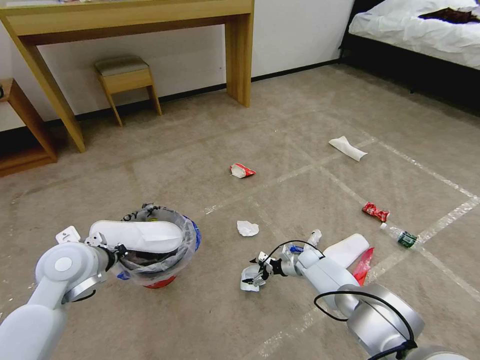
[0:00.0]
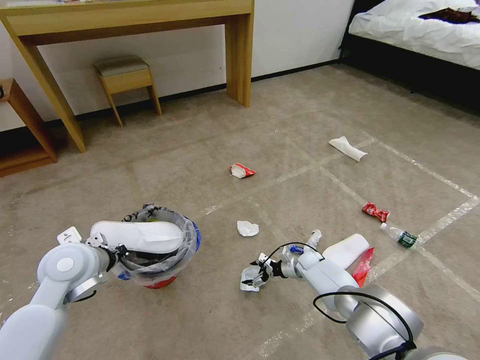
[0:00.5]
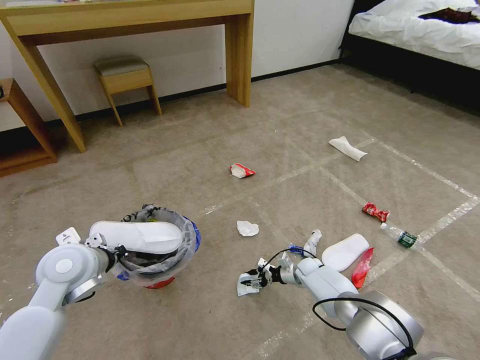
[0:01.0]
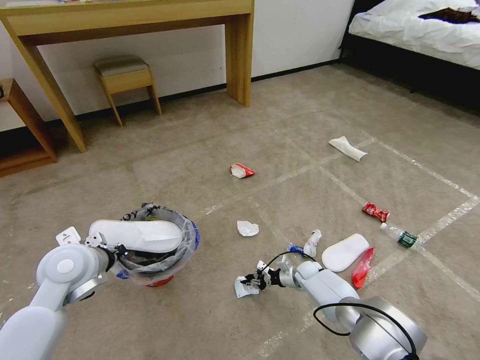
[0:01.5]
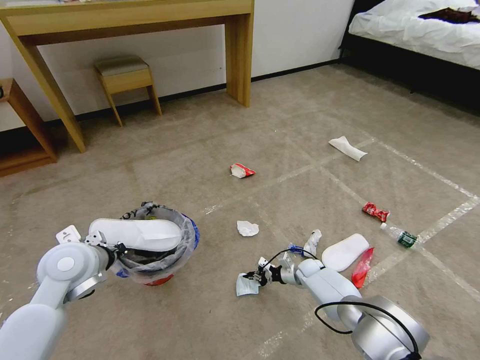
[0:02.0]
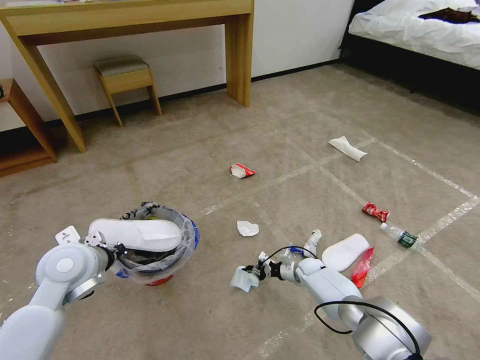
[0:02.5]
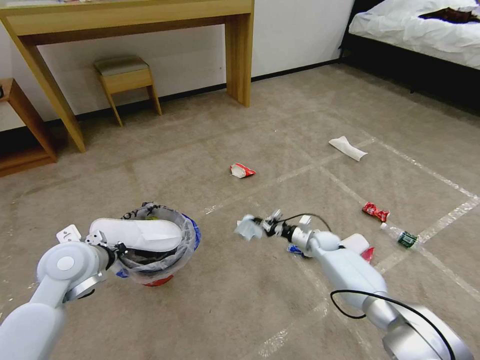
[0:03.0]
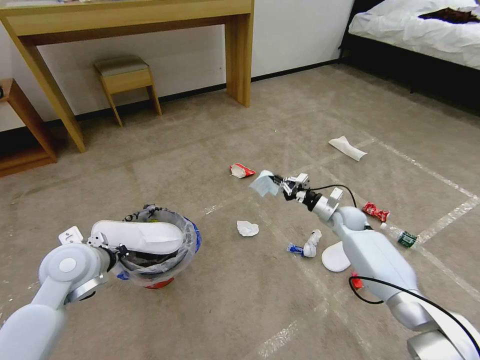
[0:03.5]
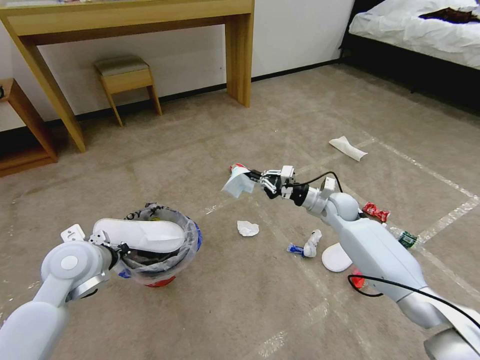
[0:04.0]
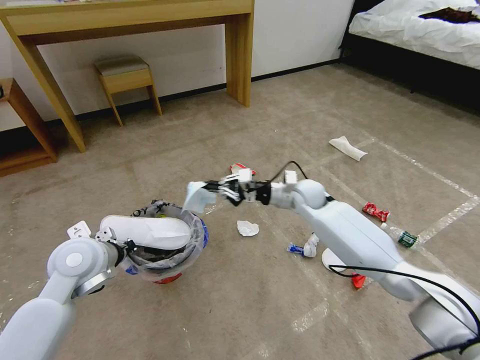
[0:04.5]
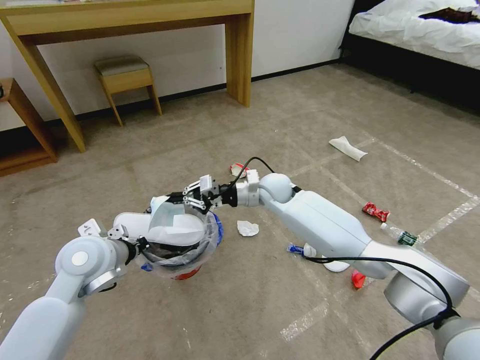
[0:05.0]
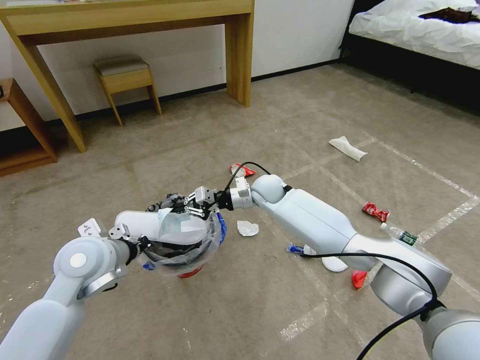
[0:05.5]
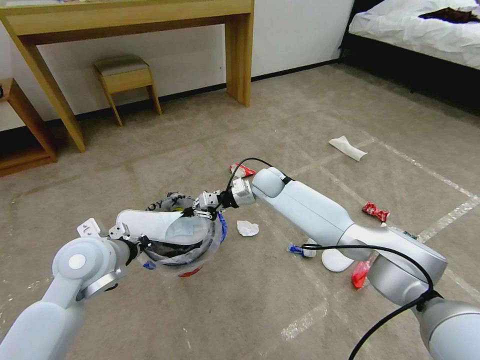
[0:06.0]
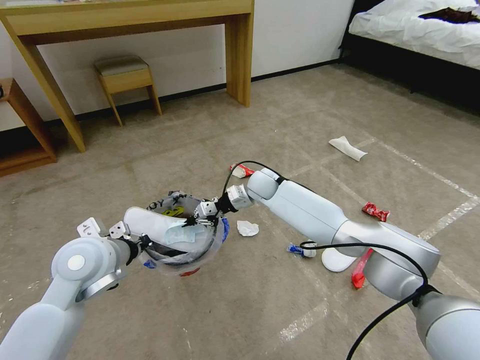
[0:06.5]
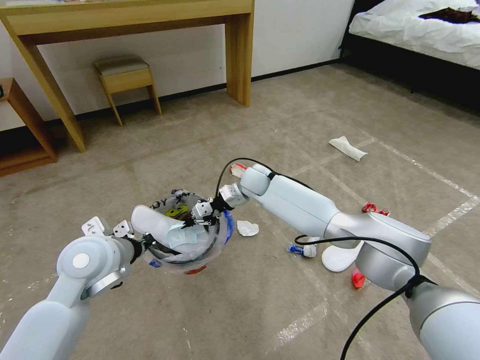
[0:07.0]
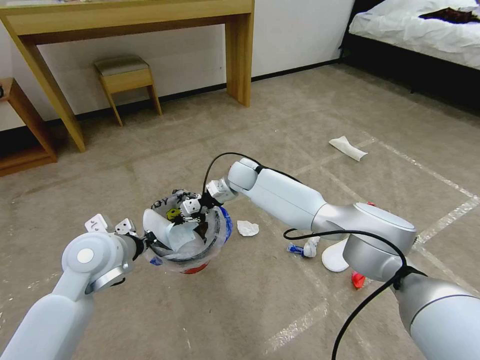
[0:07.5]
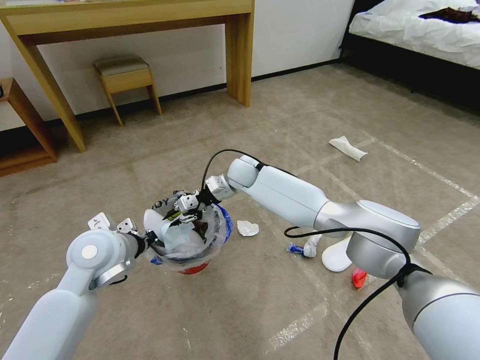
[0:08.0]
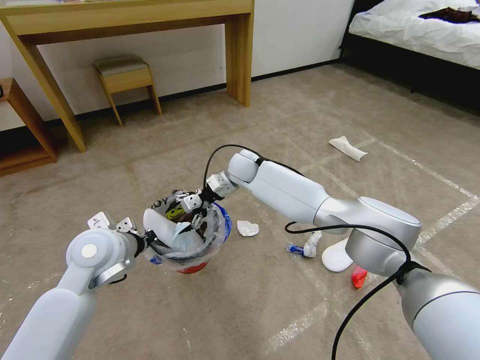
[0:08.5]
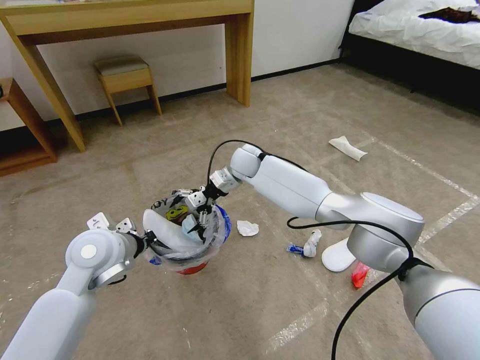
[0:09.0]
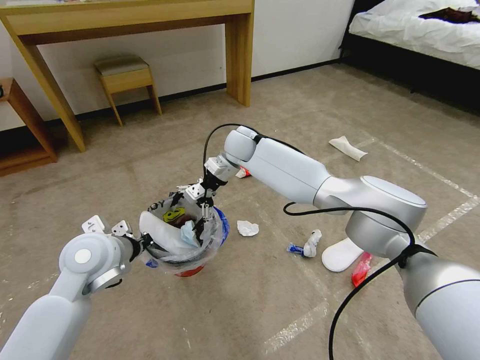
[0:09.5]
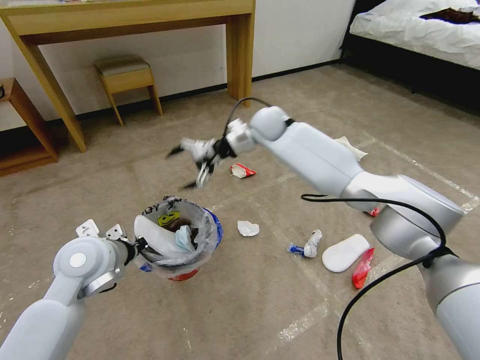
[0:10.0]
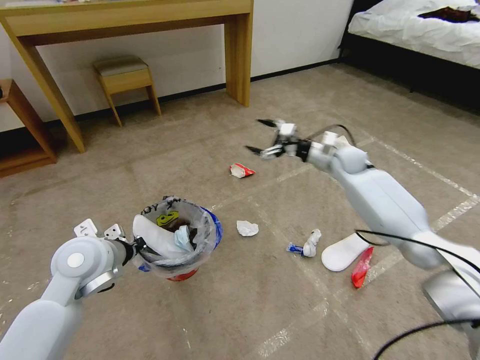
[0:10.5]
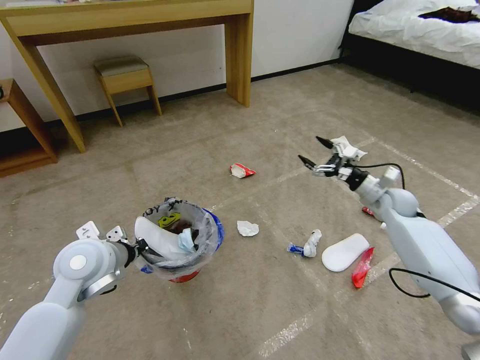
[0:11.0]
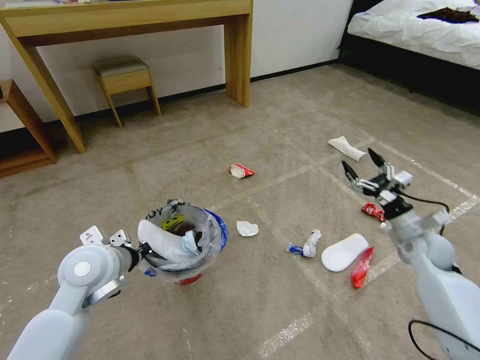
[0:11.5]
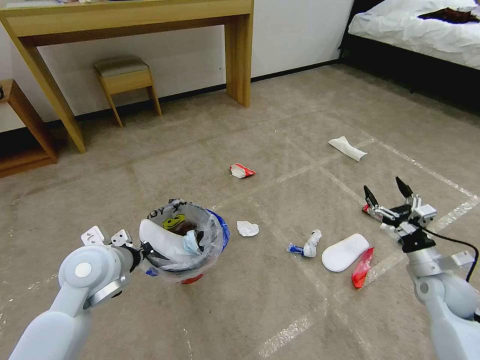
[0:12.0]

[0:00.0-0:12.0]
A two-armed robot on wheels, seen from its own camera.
Task of the whole recording: Pick up the trash bin and place the garbage on the floor into it.
0:00.0 to 0:02.0: The right gripper closes.
0:02.0 to 0:04.0: The right gripper moves upward, roughly 25 cm.
0:04.0 to 0:06.0: The right gripper moves to the left, about 20 cm.
0:06.0 to 0:08.0: The right gripper moves to the left, roughly 5 cm.
0:08.0 to 0:10.0: The right gripper shifts roughly 15 cm upward and to the right, and opens its fingers.
0:10.0 to 0:12.0: The right gripper shifts about 60 cm to the right, backward and downward.

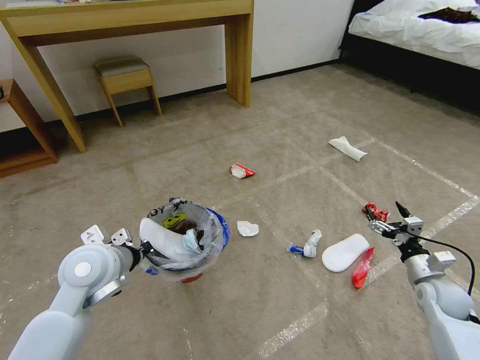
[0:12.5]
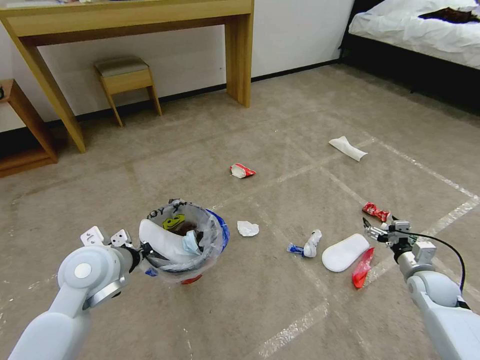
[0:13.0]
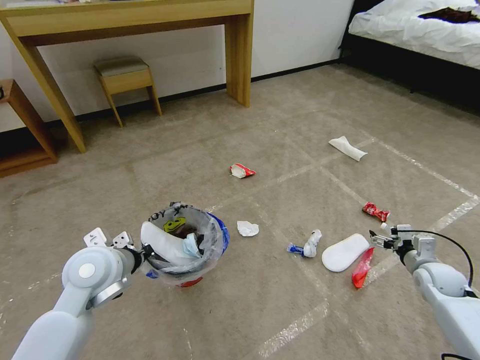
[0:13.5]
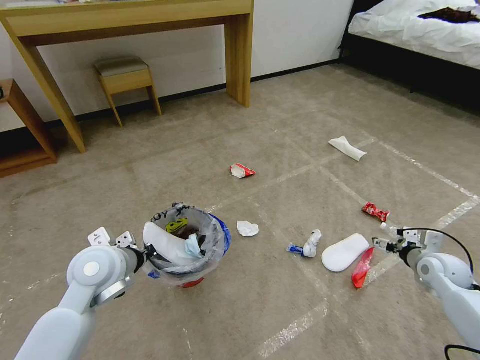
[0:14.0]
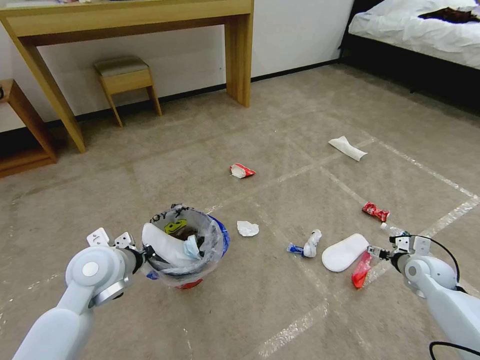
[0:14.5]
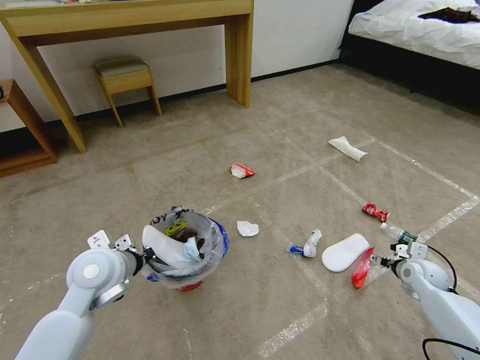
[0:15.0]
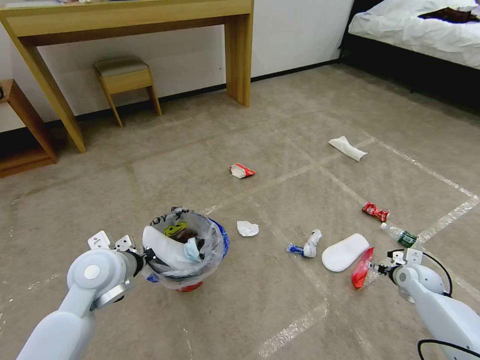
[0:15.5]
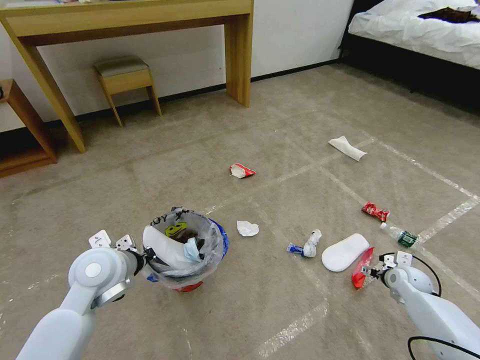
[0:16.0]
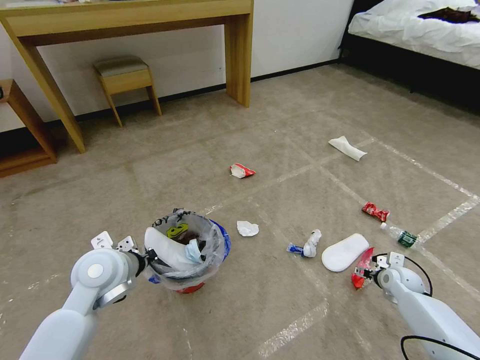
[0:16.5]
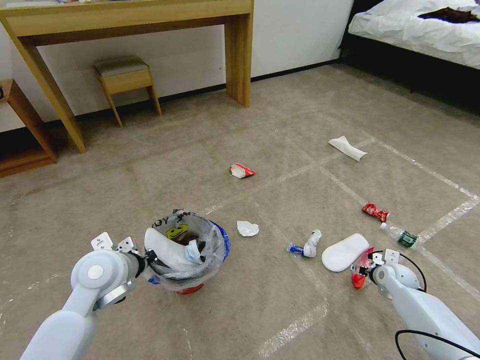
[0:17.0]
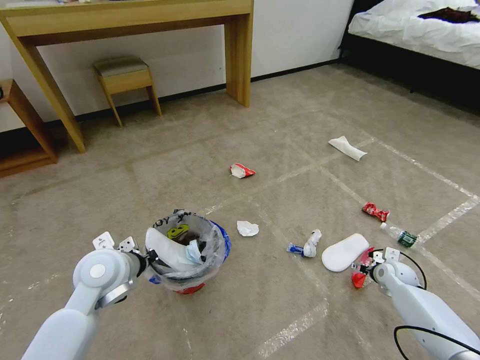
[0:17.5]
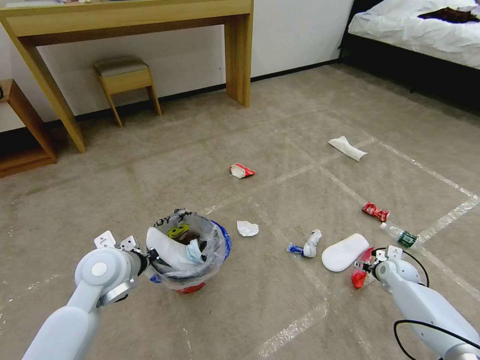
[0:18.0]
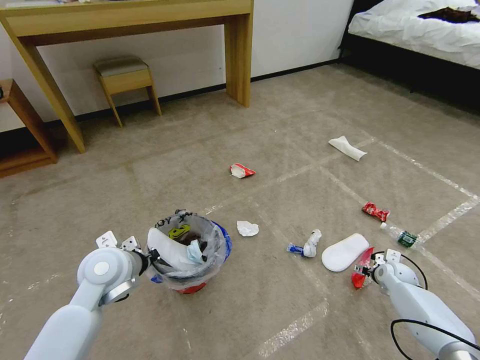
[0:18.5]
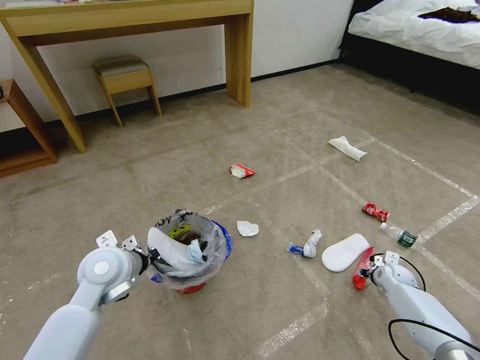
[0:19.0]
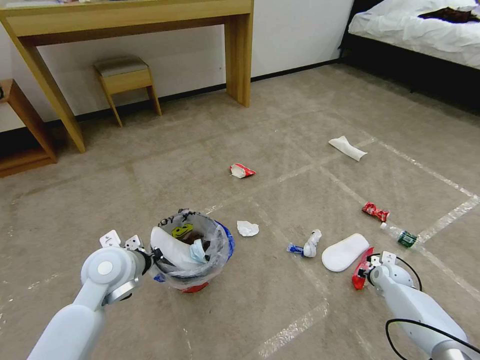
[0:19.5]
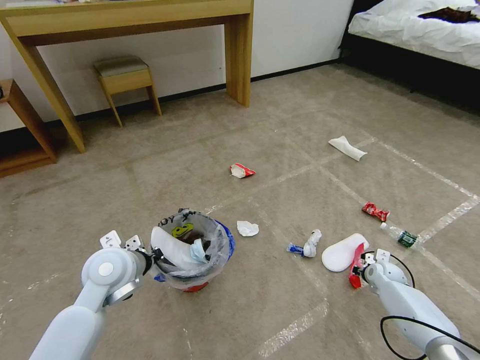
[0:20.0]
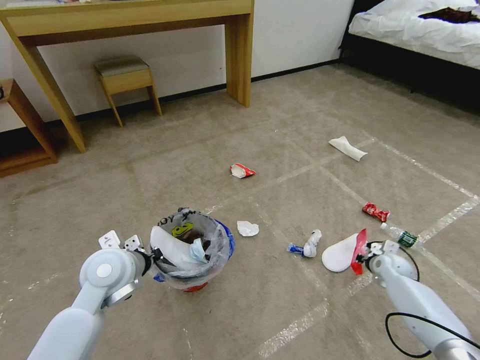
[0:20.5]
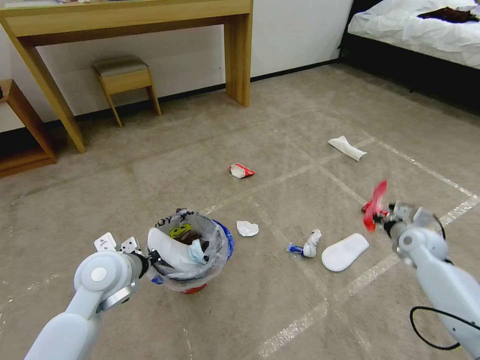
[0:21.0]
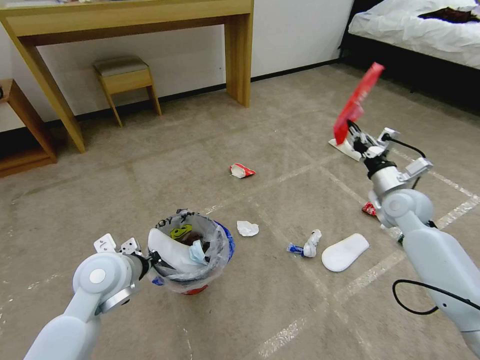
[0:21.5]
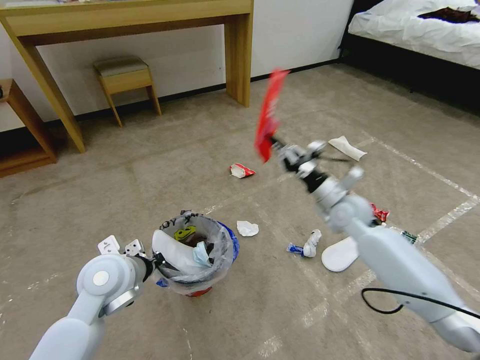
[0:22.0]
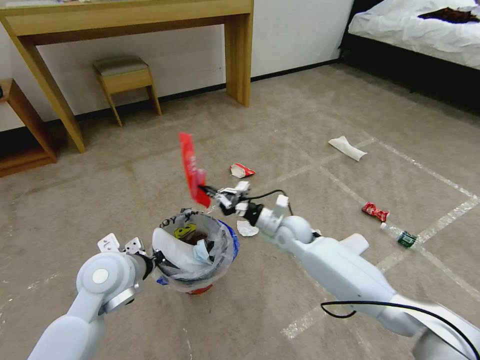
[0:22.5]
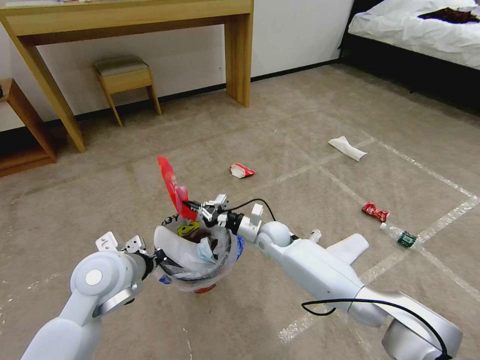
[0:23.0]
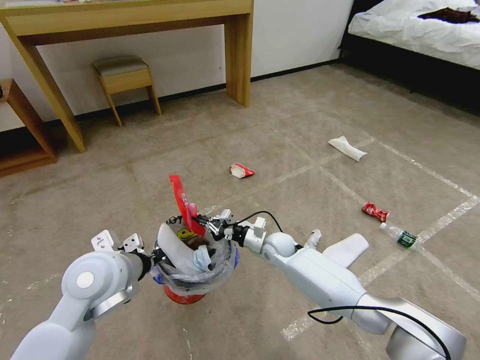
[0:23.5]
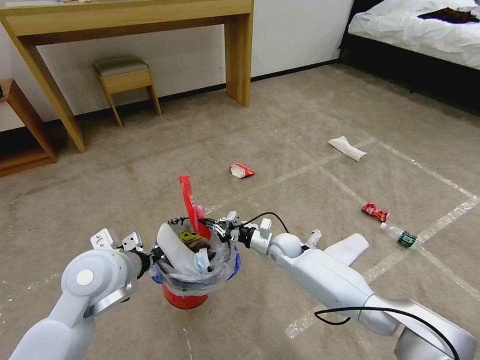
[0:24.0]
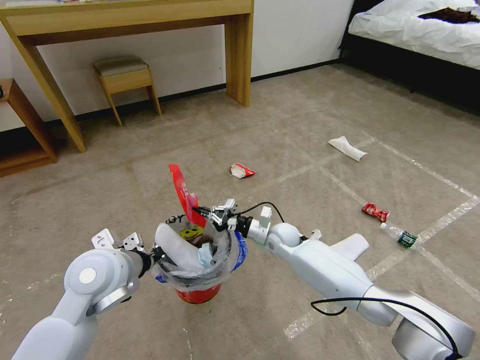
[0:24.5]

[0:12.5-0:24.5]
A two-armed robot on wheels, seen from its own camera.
Task of the whole recording: Pick up the trash bin and place the garbage on the floor into it.
0:12.5 to 0:14.5: The right gripper travels forward by roughly 5 cm.
0:14.5 to 0:16.5: The right gripper heads downward, covering some 10 cm.
0:16.5 to 0:18.5: There are only small adjustments of the grippers.
0:18.5 to 0:20.5: The right gripper closes up.
0:20.5 to 0:22.5: The right gripper goes approximately 35 cm to the left.

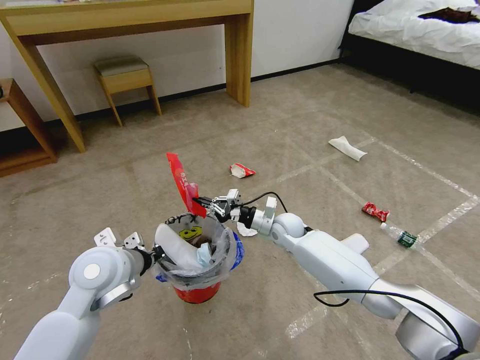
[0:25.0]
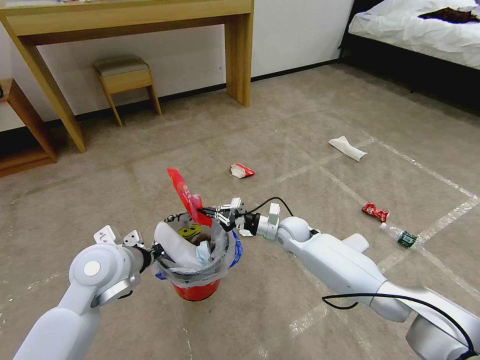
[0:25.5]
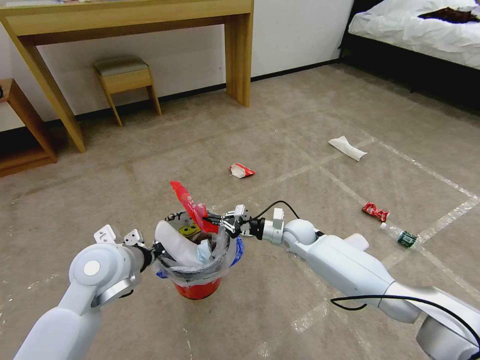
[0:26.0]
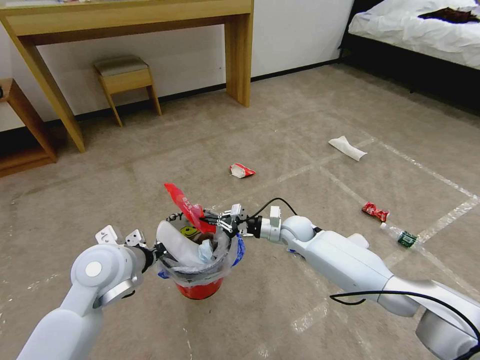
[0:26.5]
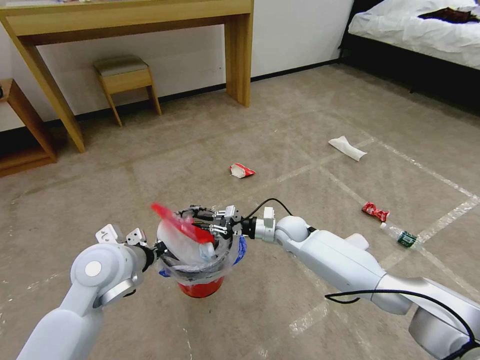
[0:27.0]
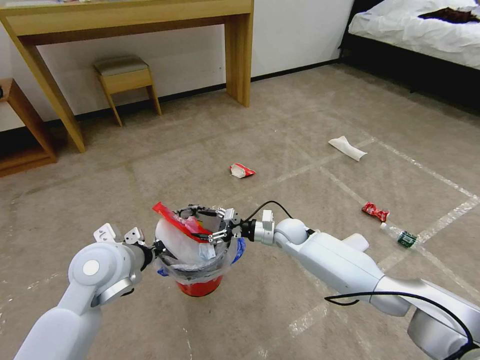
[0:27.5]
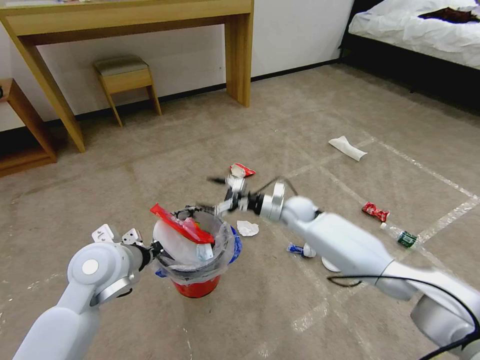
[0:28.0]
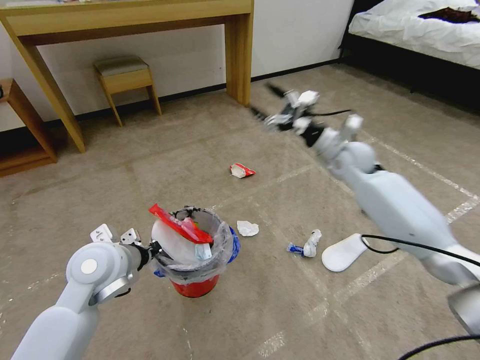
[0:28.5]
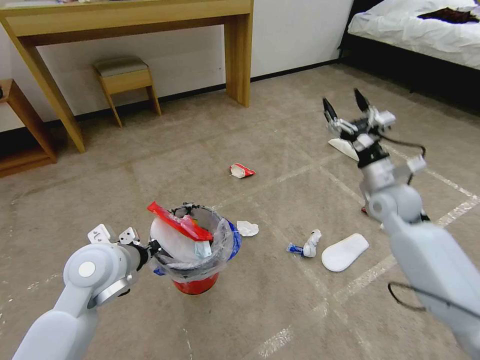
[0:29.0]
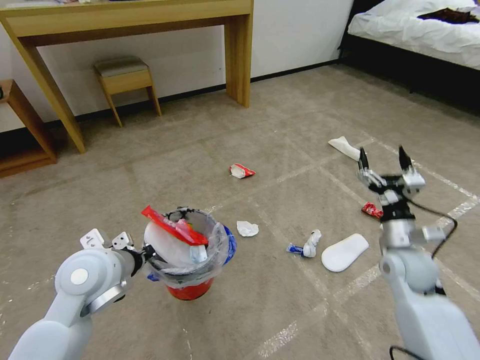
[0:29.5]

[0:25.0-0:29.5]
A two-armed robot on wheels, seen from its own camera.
Task of the whole recording: Pick up the trash bin and place the garbage on the floor into it.
0:25.0 to 0:27.0: There are only small adjustments of the grippers.
0:27.0 to 0:29.5: The right gripper heads to the right, backward and upward, covering roughly 25 cm, and opens up.
